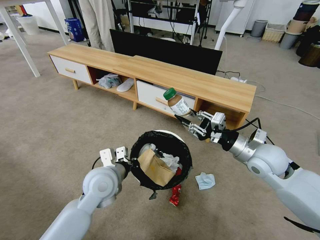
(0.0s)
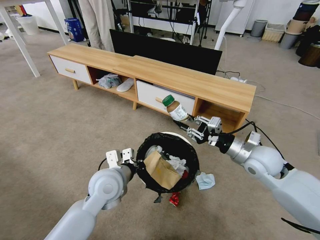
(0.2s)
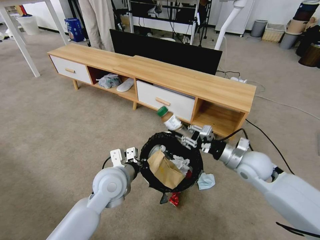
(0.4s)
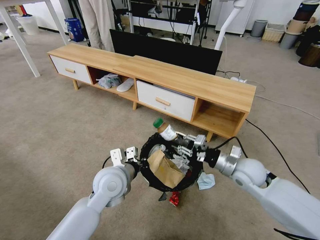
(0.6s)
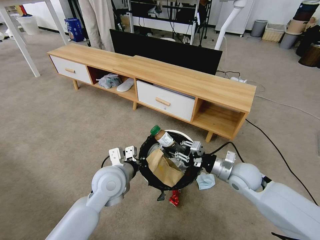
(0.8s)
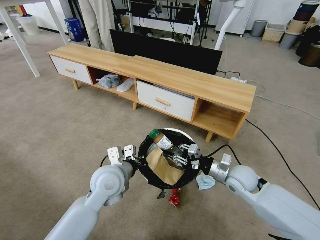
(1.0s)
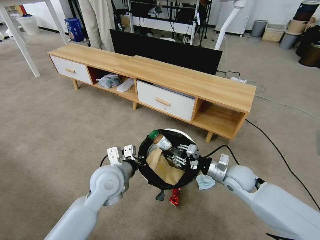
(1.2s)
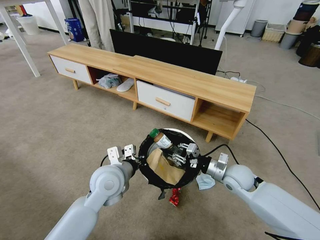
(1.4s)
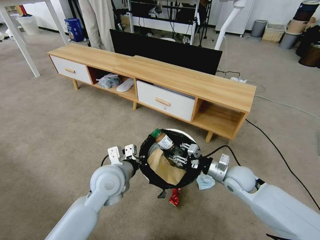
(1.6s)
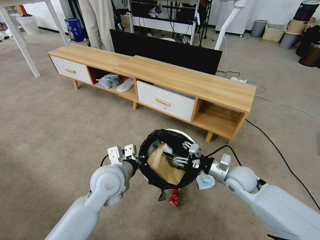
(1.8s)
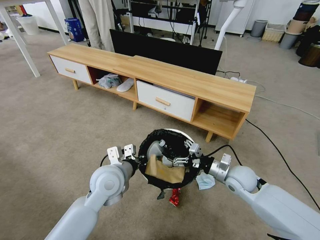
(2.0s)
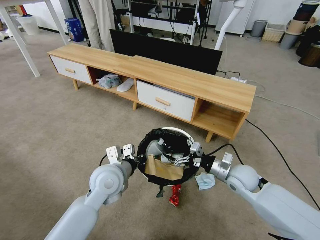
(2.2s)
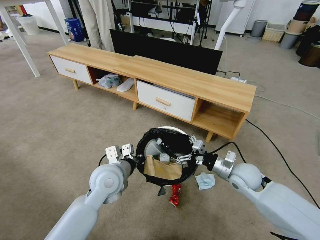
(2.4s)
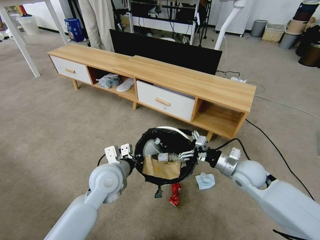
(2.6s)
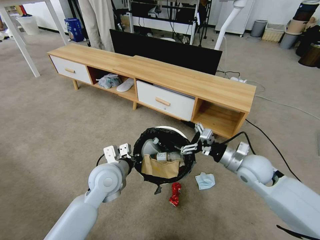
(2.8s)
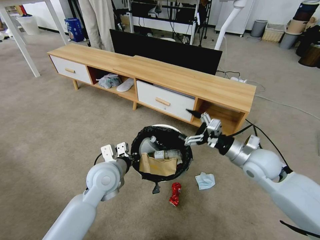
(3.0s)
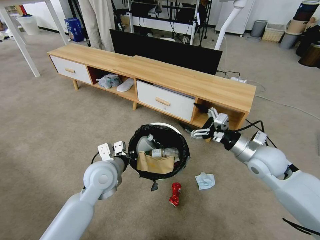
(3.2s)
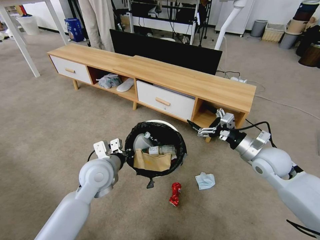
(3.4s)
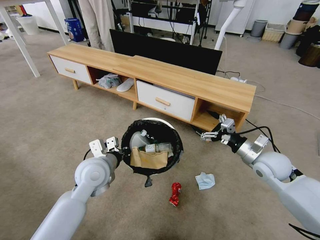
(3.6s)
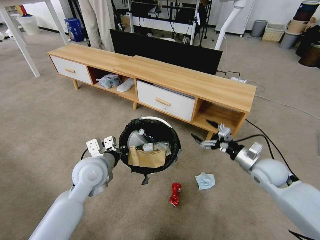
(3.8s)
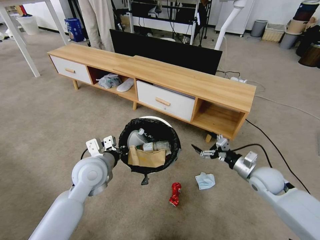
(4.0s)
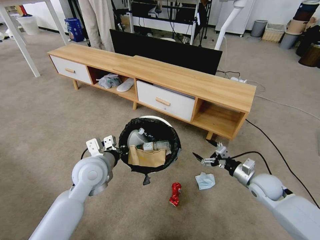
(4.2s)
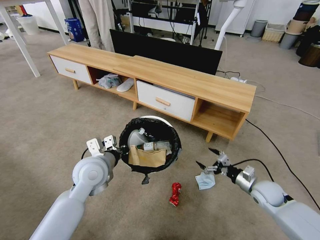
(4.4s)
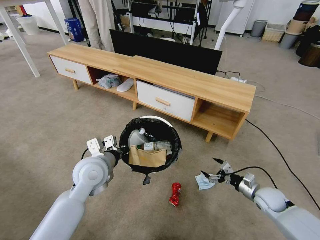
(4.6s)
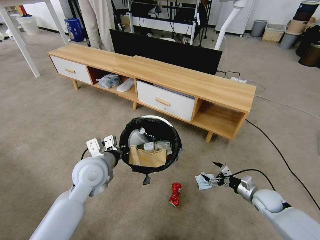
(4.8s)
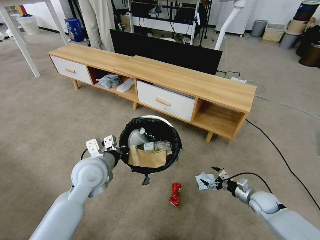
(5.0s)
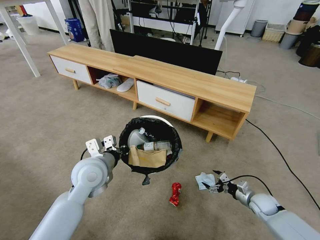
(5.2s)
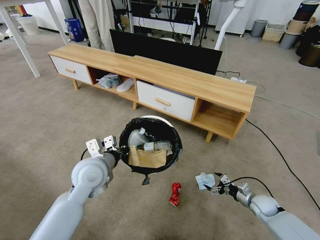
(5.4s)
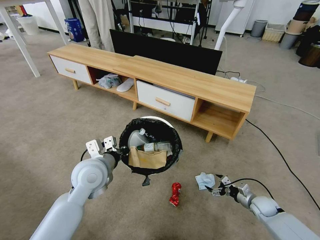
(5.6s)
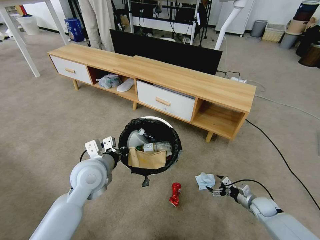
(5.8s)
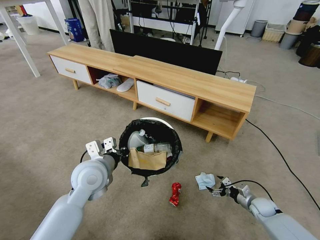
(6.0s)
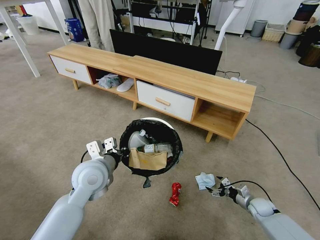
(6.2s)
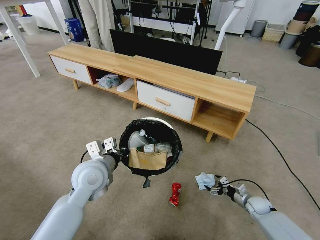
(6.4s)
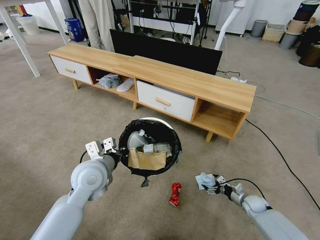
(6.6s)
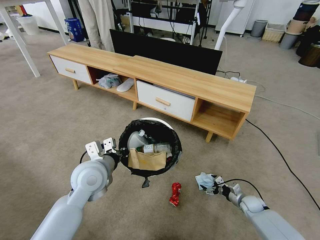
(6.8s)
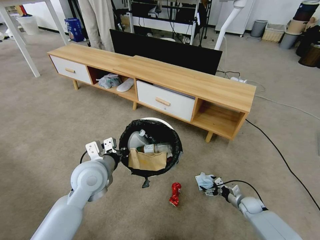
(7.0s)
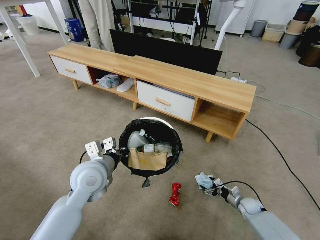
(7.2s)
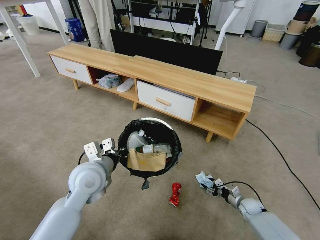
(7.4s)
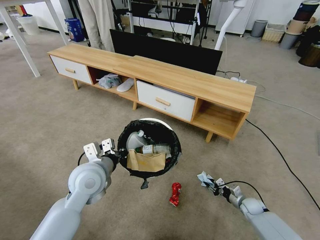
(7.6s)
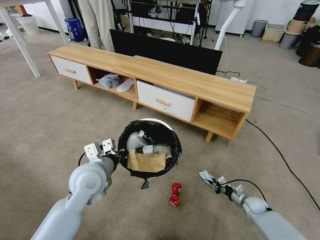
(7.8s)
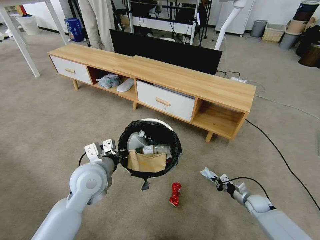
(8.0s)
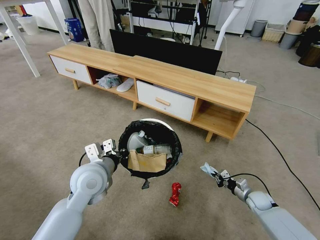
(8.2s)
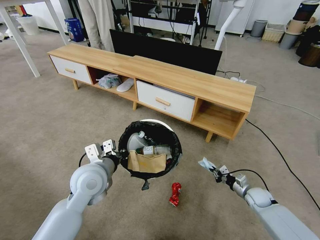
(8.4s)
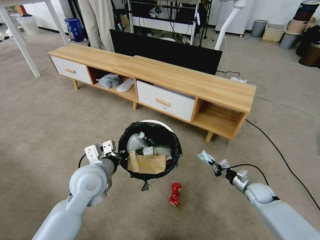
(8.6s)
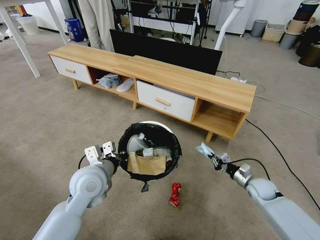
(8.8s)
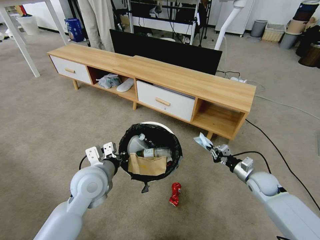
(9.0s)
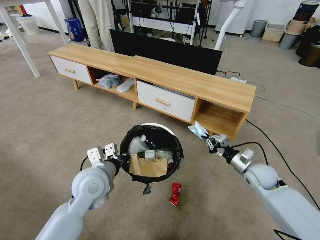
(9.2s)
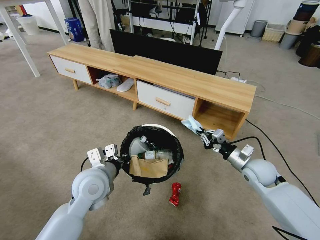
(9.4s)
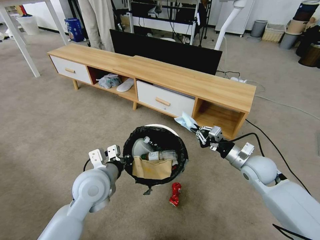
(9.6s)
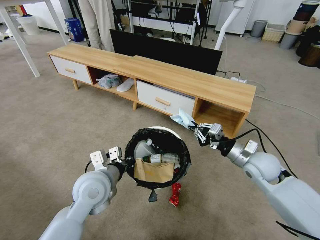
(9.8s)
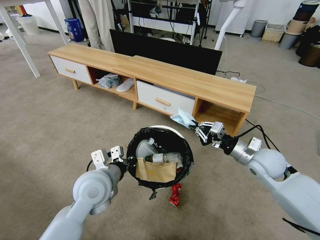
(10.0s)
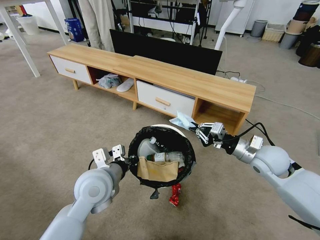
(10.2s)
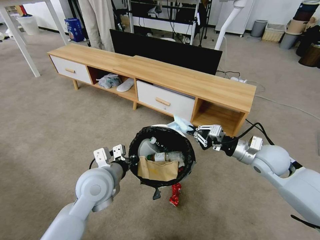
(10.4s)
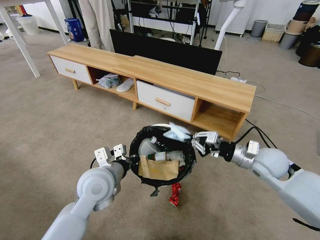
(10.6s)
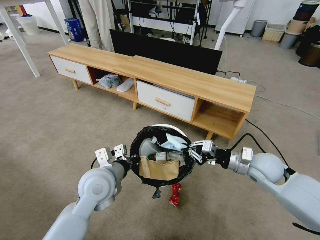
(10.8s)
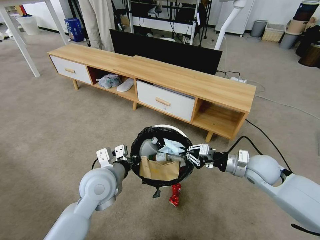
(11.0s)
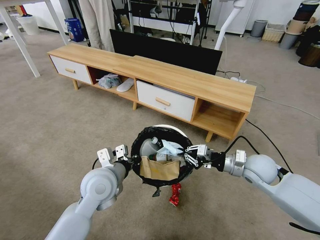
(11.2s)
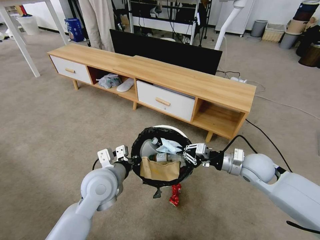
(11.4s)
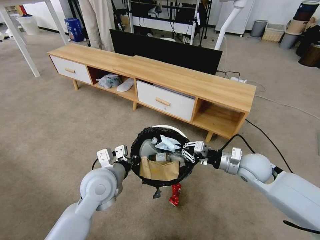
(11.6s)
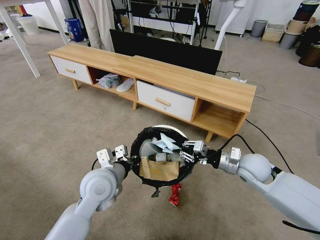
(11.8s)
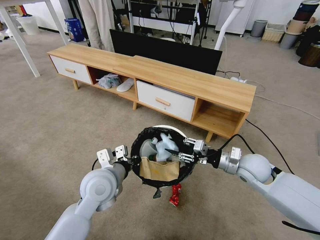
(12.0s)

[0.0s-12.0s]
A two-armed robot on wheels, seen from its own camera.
Task of the whole recording: Pick up the trash bin and place the garbage on the floor into it.
0.0s to 1.6s: The right gripper heads downward, covering some 10 cm.
1.6s to 3.0s: The right gripper heads upward, covering some 10 cm, and opens up.
3.0s to 4.4s: The right gripper goes approximately 20 cm downward and to the right.
4.4s to 6.0s: The right gripper is displaced downward by roughly 15 cm.
6.0s to 7.6s: The right gripper closes up.
7.6s to 9.0s: The right gripper shifts approximately 20 cm upward, and closes.
9.0s to 10.4s: The right gripper moves upward, approximately 15 cm.
10.4s to 12.0s: The right gripper shifts by about 5 cm, and opens its fingers.

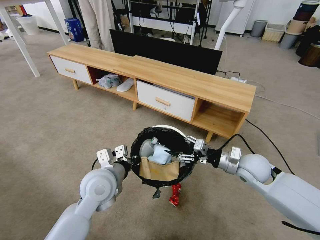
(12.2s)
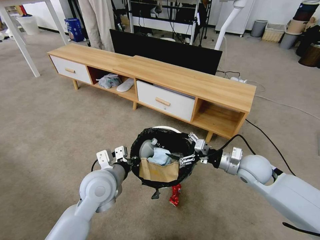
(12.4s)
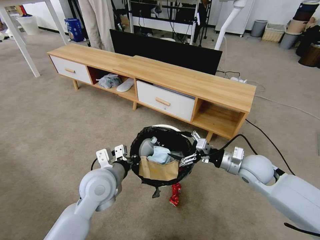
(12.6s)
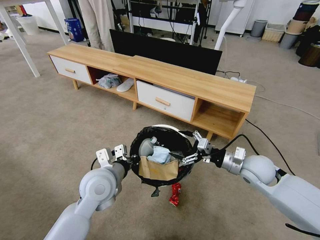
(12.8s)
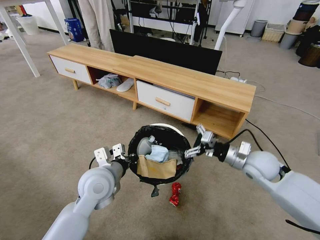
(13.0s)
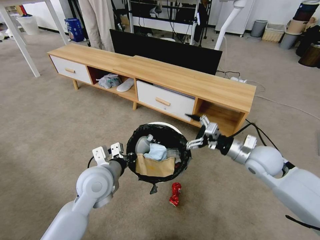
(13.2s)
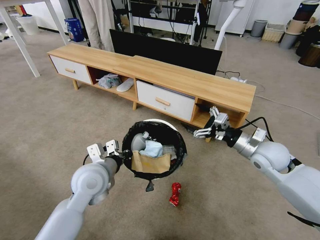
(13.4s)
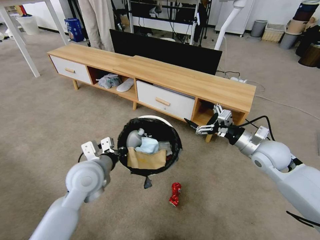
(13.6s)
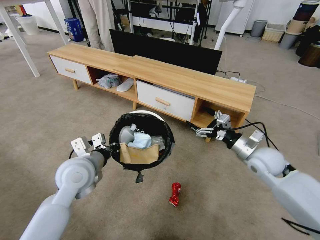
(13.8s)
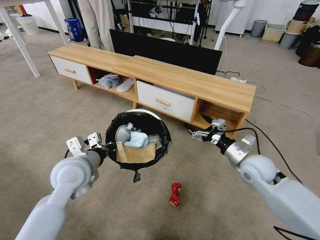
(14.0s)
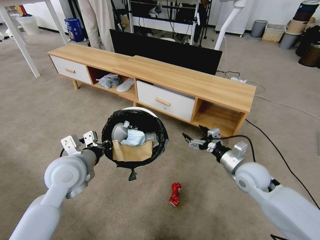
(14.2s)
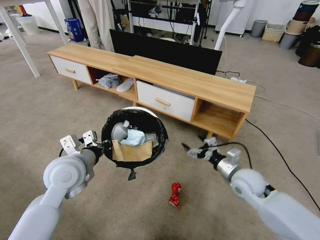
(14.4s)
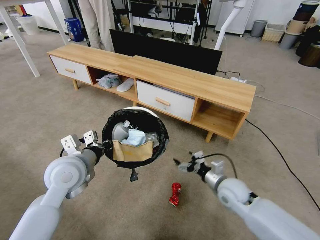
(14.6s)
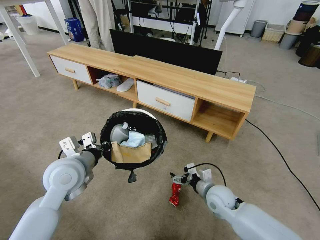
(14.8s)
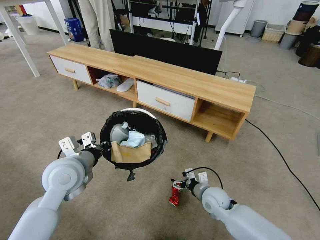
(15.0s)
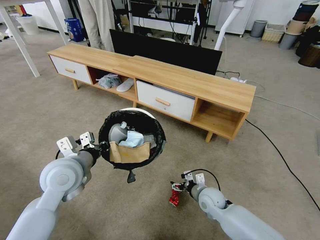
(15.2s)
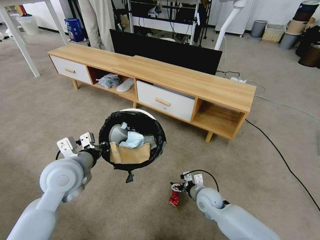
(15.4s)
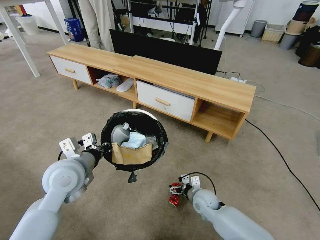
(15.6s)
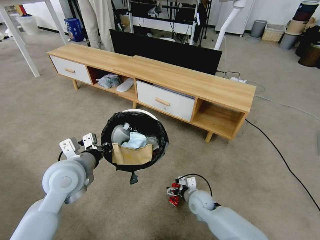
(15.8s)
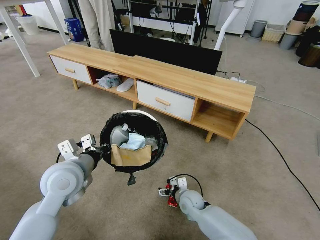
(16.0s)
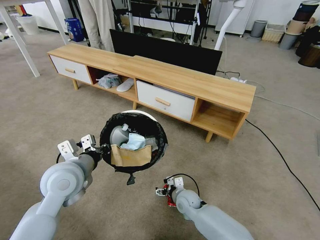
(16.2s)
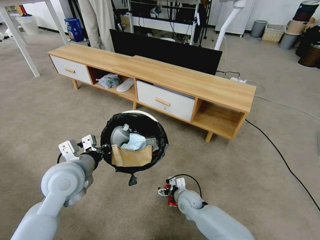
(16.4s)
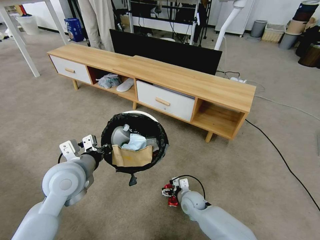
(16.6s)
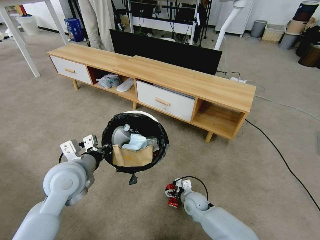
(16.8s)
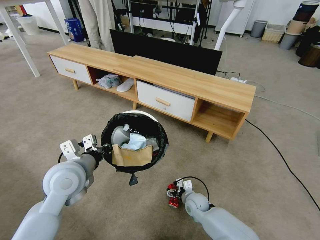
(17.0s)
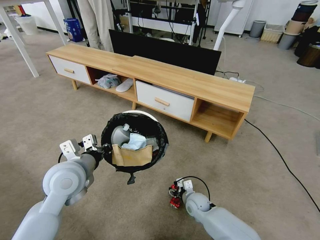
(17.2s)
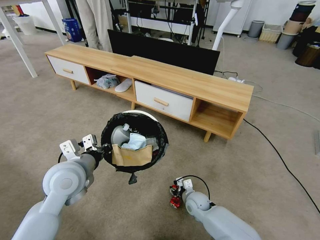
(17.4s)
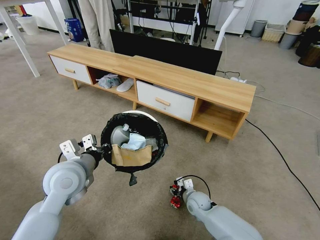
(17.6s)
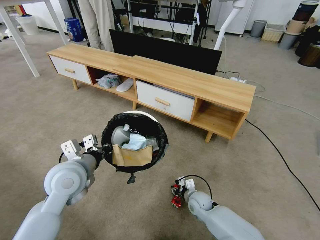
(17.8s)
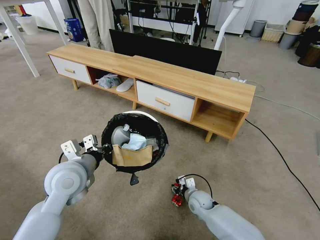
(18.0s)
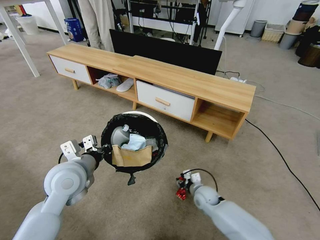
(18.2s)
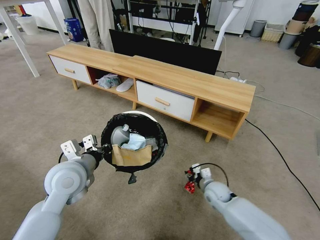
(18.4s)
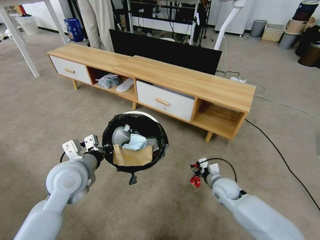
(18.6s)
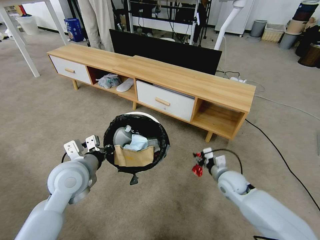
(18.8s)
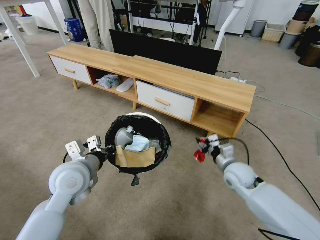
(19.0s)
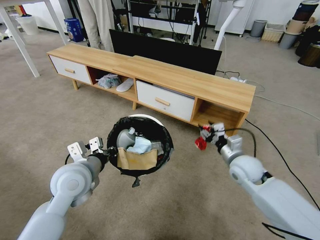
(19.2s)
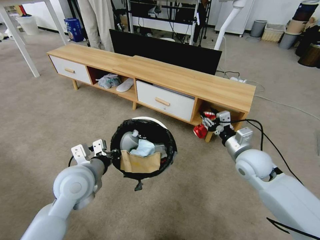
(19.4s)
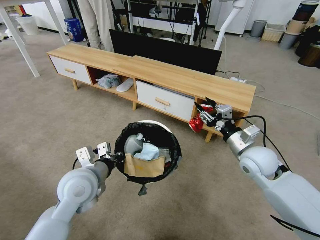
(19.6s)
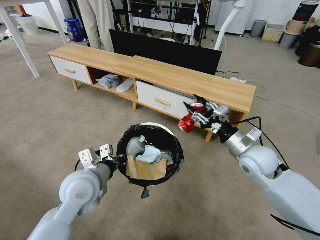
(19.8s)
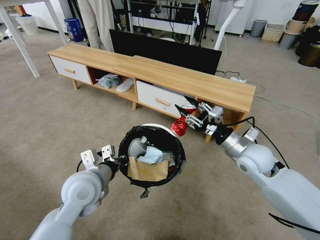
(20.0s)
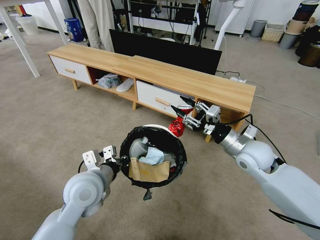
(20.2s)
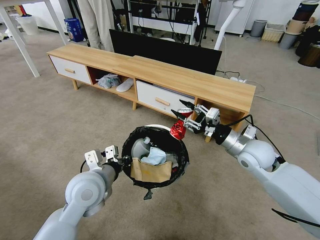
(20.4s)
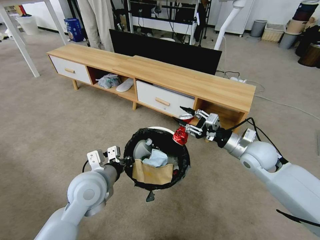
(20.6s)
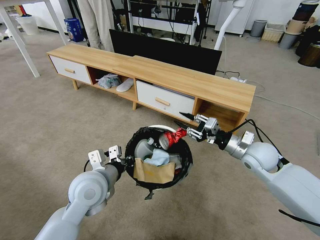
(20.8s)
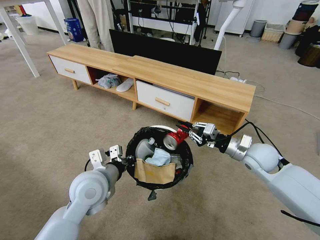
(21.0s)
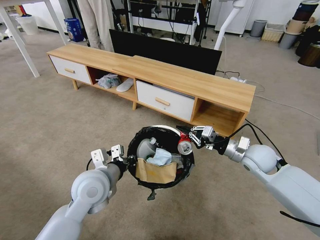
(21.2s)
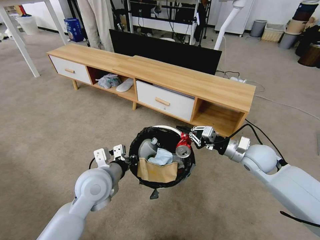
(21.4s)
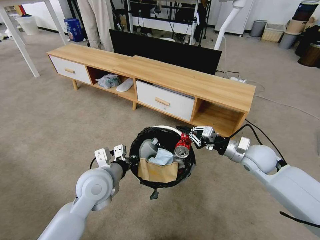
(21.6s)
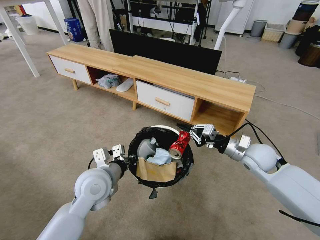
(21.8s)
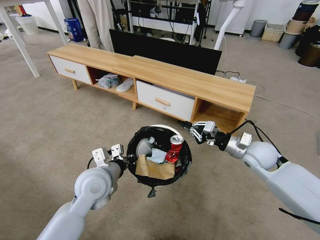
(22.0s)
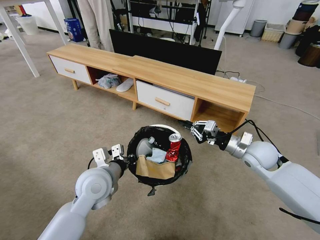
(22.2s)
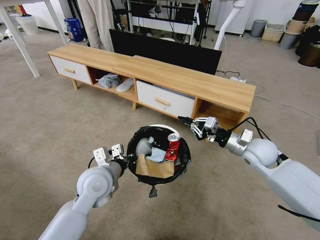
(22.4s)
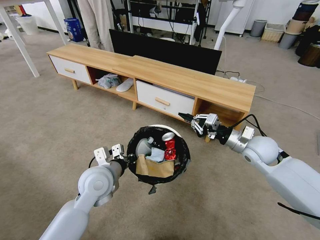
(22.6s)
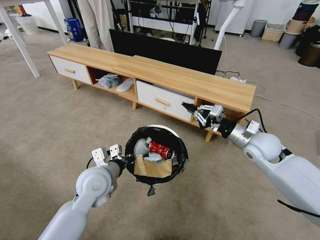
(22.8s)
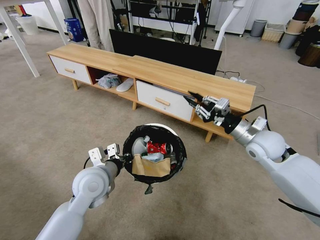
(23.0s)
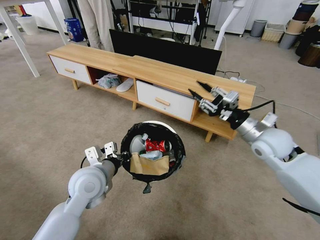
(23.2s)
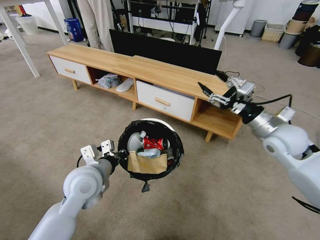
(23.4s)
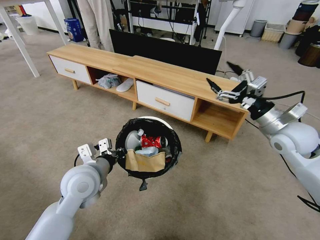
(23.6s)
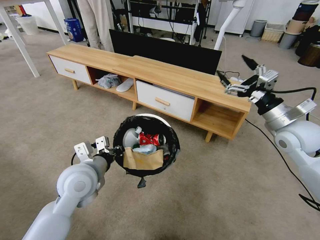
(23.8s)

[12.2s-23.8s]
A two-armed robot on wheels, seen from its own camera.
Task of the whole recording: Pick up the trash bin and place the garbage on the floor into it.
12.2s to 13.6s: The right gripper ends up roughly 5 cm from where it was.
13.6s to 15.0s: The right gripper travels downward and to the left by some 25 cm.
15.0s to 16.6s: The right gripper shifts approximately 10 cm downward and to the left.
16.6s to 18.0s: The right gripper closes.
18.0s to 19.4s: The right gripper travels upward and to the right by some 30 cm.
19.4s to 21.0s: The right gripper closes.
21.0s to 22.4s: The grippers make only small movements.
22.4s to 23.8s: The right gripper travels upward and to the right by about 10 cm, and opens its fingers.
